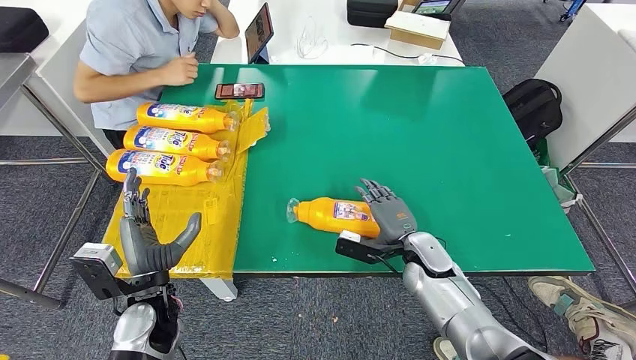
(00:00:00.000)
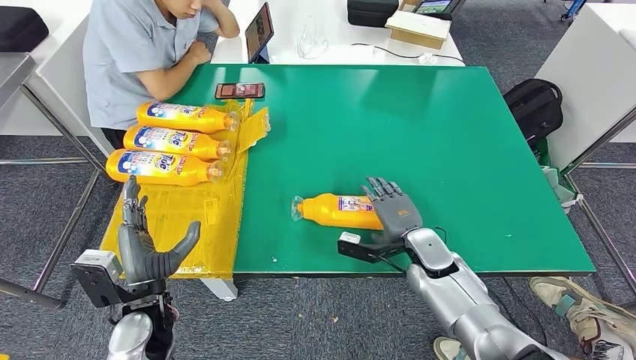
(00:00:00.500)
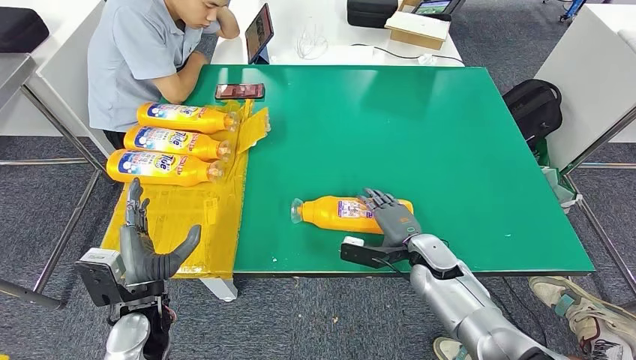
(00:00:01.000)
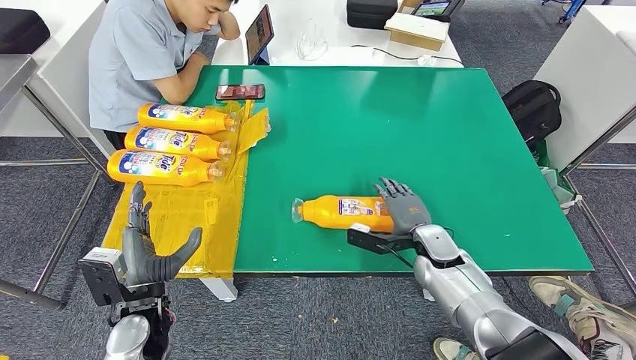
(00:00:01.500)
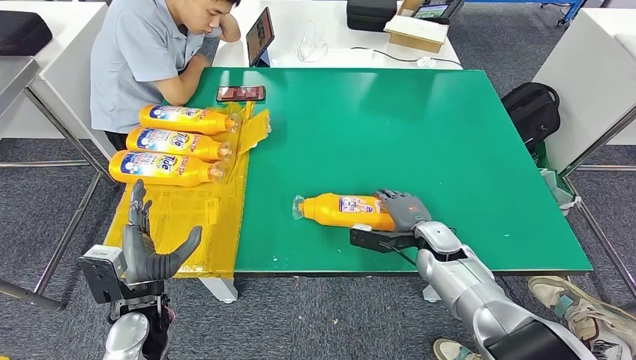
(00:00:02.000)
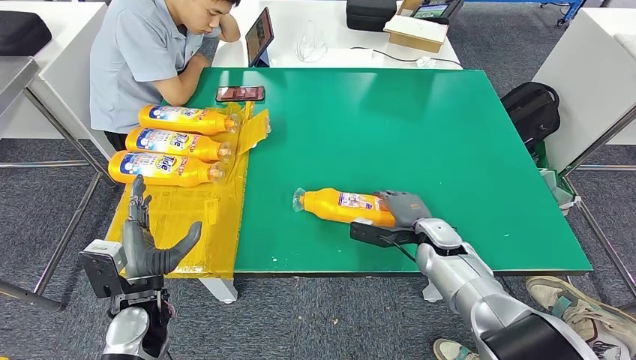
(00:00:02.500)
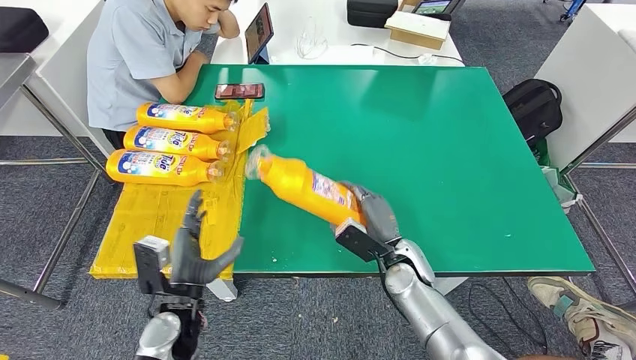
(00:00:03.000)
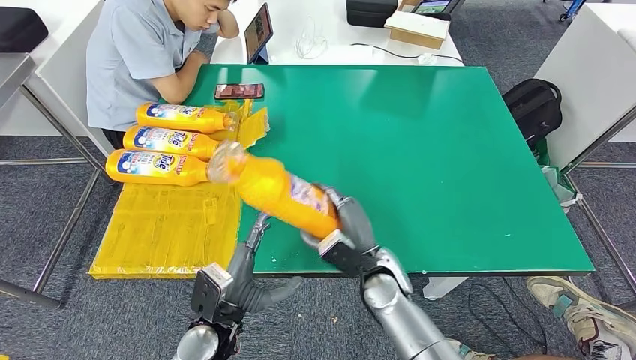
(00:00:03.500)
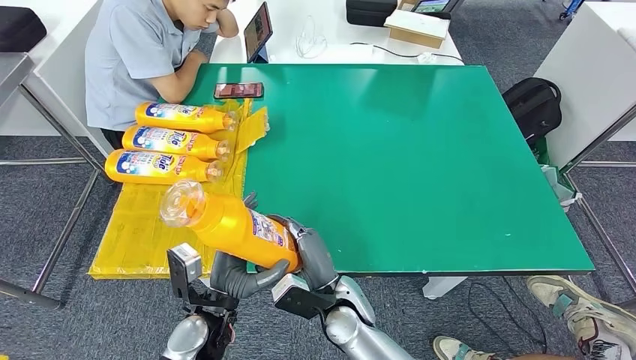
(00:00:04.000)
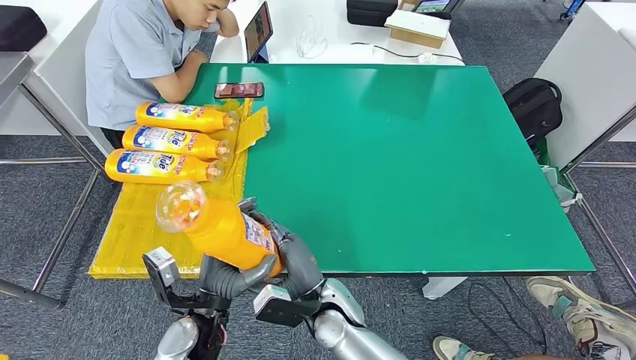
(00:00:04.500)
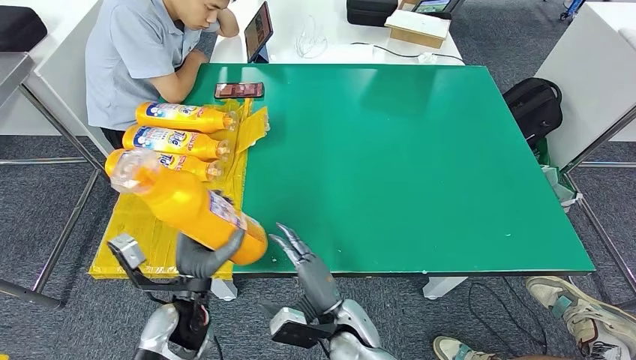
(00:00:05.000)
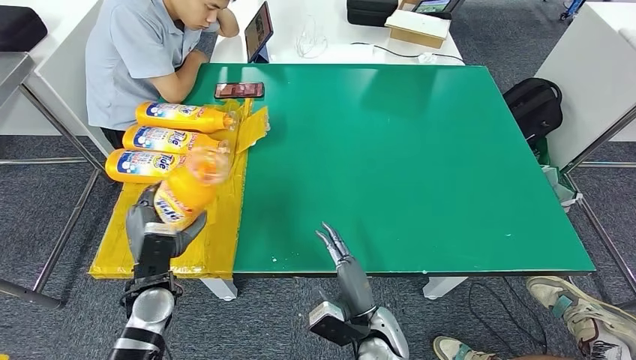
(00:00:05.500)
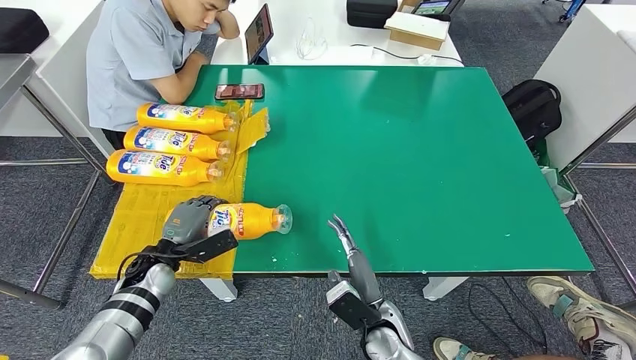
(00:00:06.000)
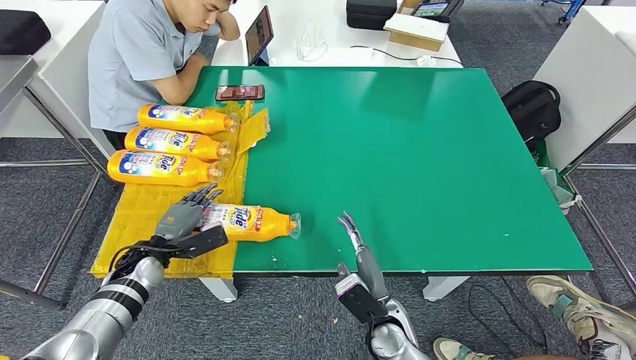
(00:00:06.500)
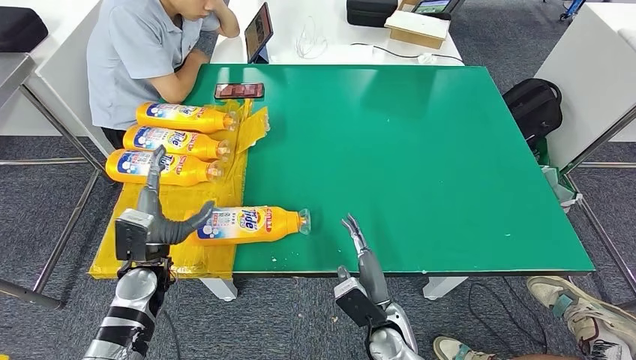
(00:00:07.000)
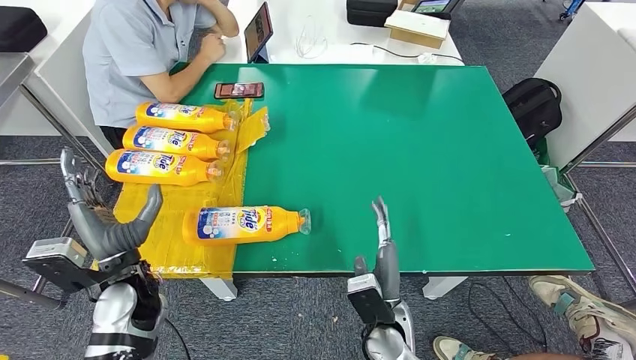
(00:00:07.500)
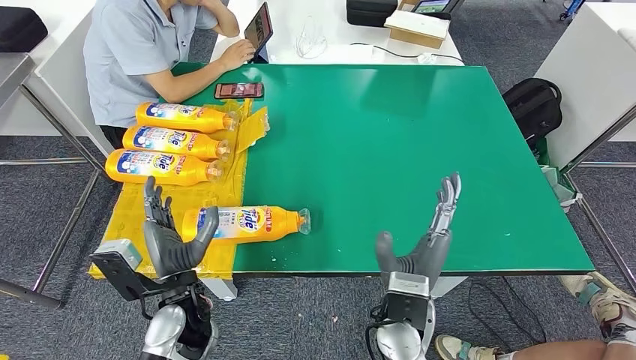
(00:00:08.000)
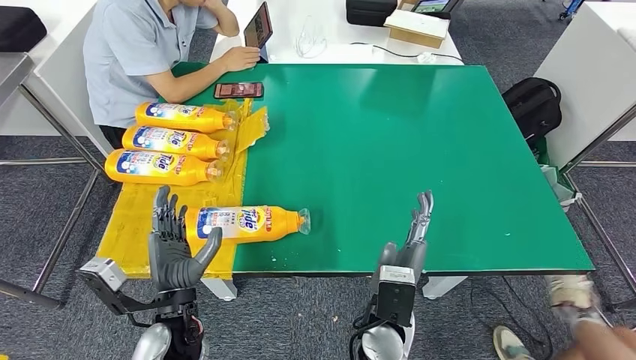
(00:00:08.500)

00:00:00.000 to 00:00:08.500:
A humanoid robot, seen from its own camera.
Step, 00:00:01.000 to 00:00:04.000: Pick up the bottle from the table.
Step, 00:00:04.500 to 00:00:08.500: Flip the bottle to face forward.
